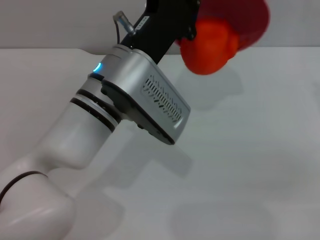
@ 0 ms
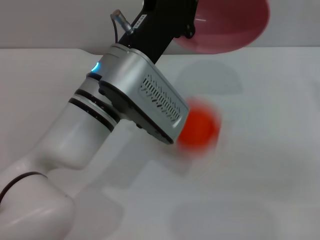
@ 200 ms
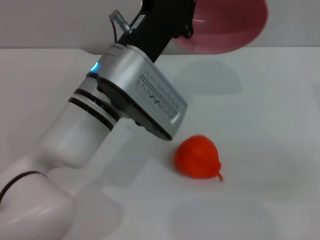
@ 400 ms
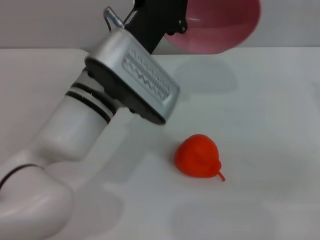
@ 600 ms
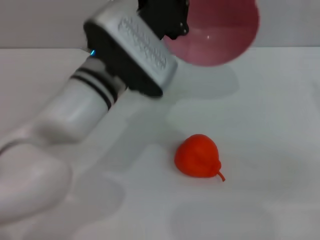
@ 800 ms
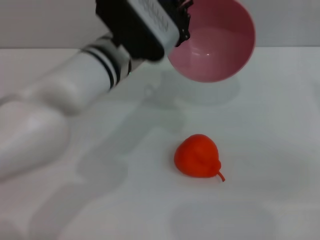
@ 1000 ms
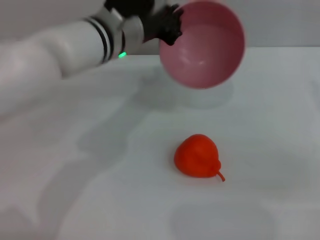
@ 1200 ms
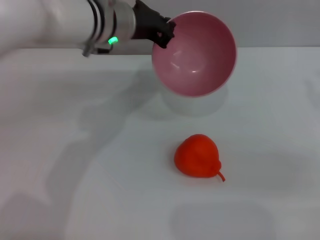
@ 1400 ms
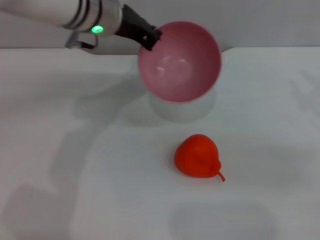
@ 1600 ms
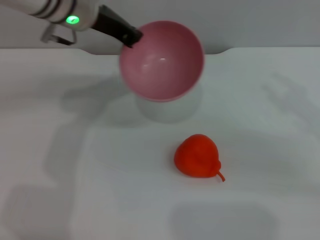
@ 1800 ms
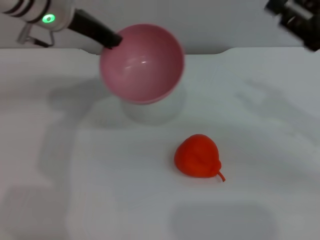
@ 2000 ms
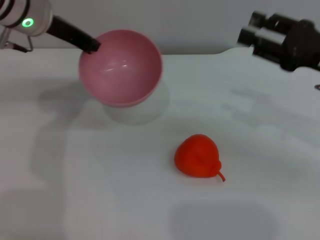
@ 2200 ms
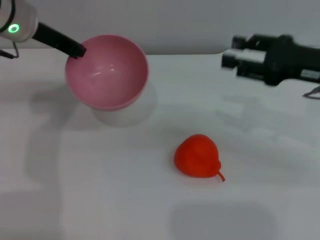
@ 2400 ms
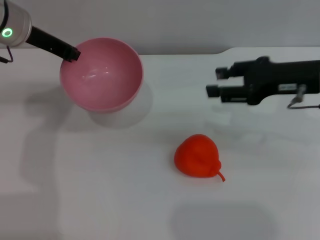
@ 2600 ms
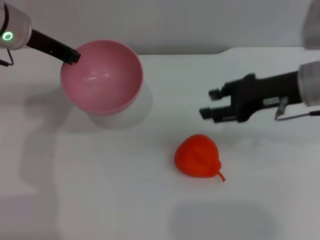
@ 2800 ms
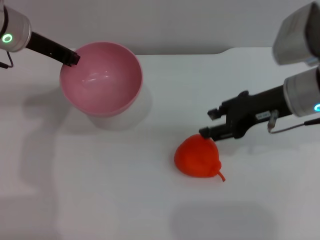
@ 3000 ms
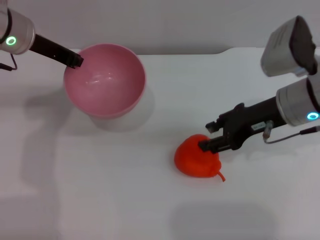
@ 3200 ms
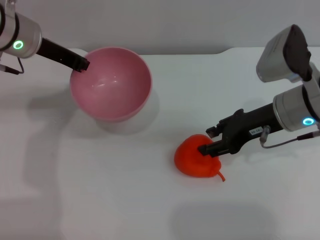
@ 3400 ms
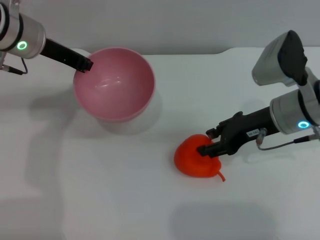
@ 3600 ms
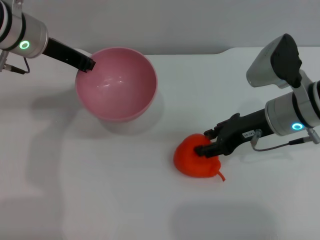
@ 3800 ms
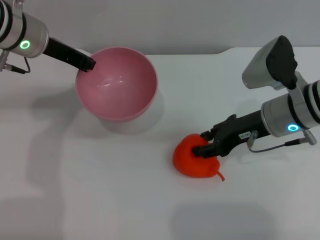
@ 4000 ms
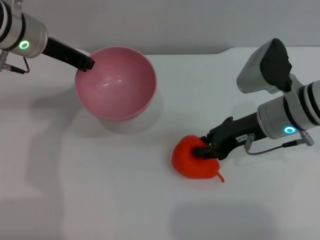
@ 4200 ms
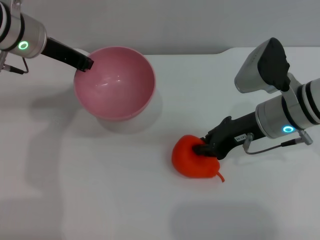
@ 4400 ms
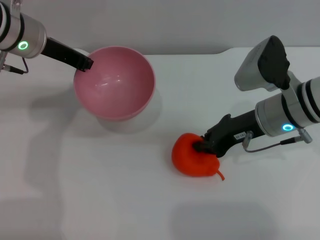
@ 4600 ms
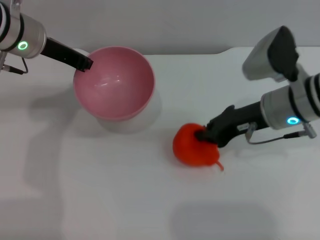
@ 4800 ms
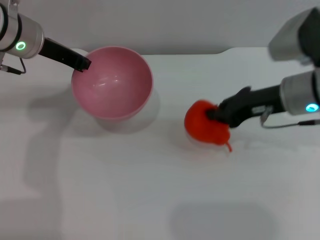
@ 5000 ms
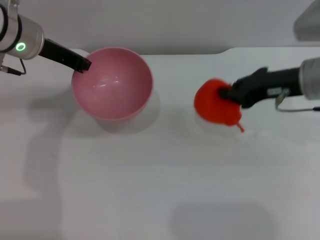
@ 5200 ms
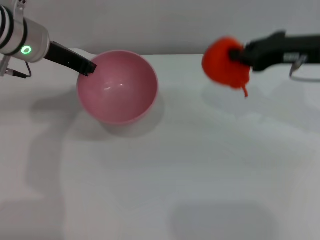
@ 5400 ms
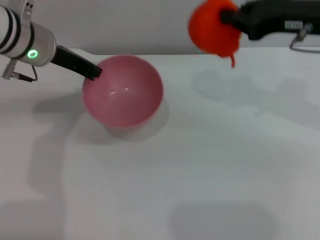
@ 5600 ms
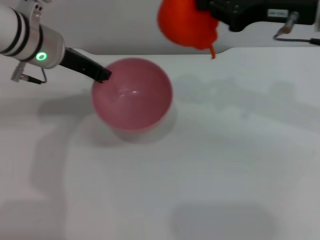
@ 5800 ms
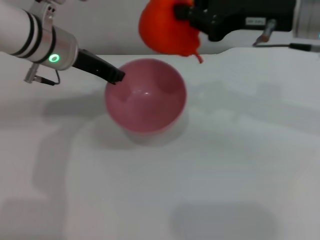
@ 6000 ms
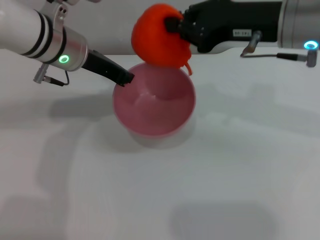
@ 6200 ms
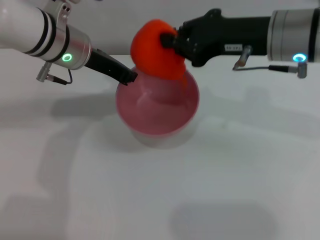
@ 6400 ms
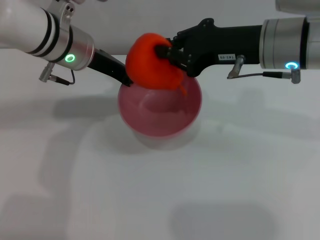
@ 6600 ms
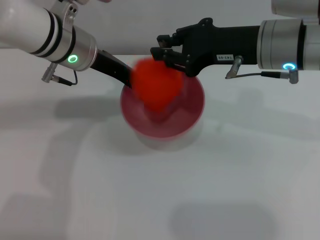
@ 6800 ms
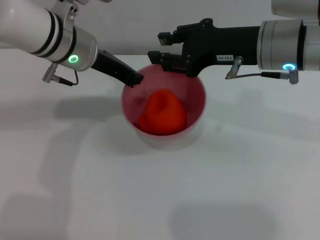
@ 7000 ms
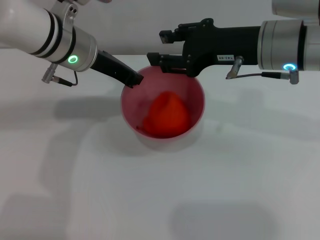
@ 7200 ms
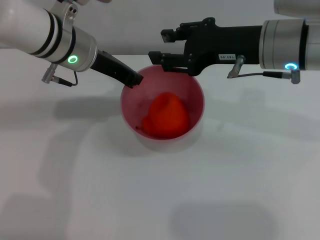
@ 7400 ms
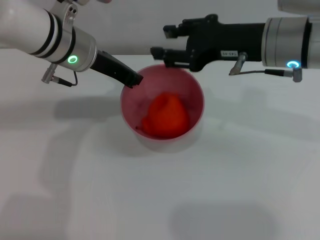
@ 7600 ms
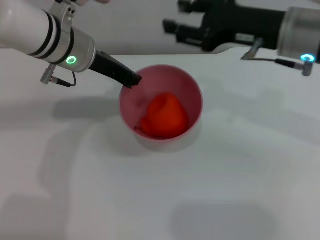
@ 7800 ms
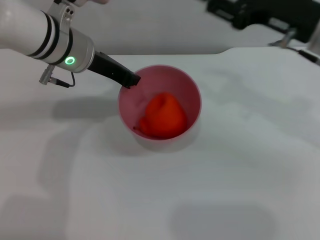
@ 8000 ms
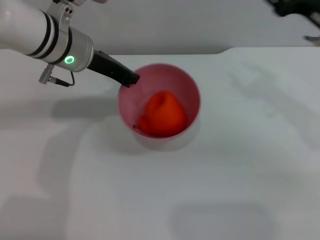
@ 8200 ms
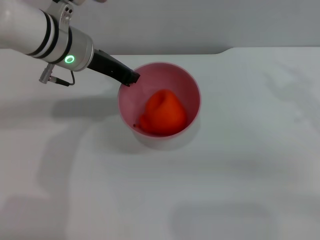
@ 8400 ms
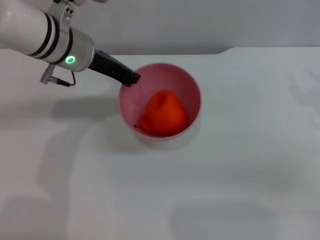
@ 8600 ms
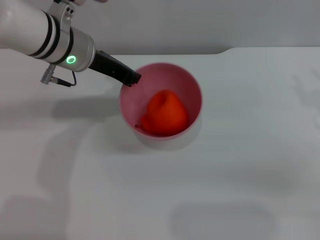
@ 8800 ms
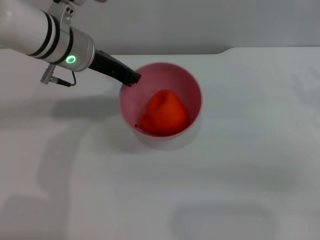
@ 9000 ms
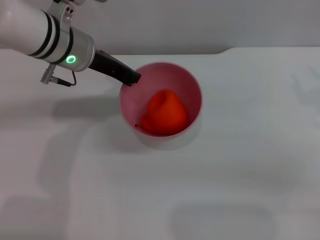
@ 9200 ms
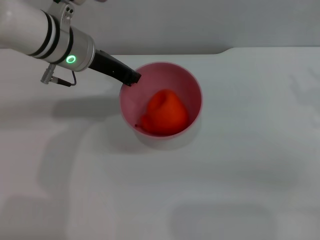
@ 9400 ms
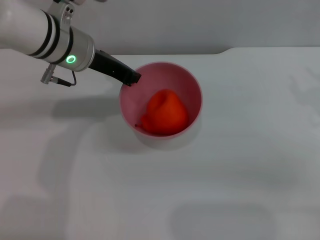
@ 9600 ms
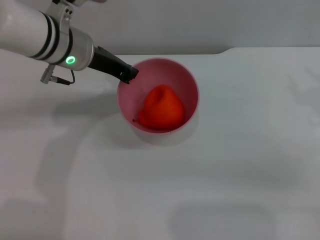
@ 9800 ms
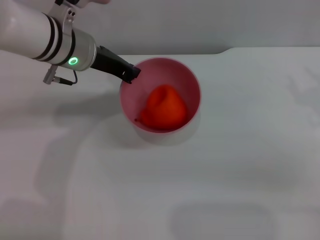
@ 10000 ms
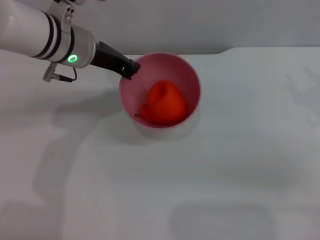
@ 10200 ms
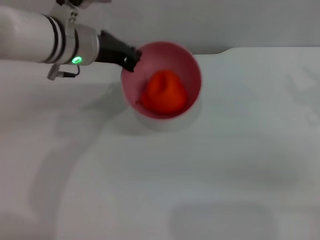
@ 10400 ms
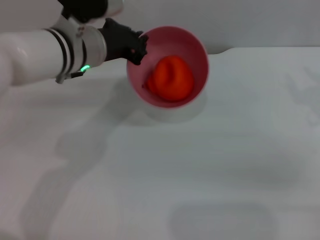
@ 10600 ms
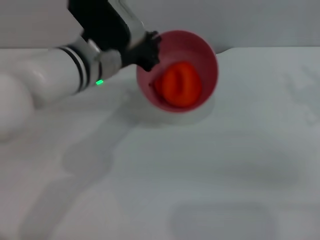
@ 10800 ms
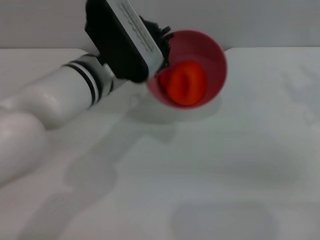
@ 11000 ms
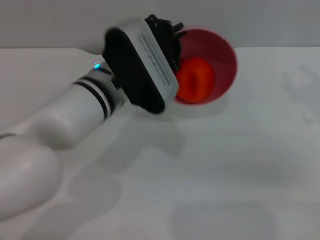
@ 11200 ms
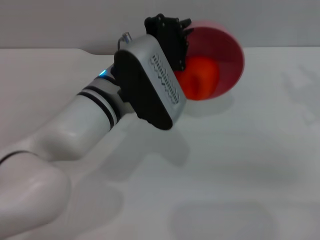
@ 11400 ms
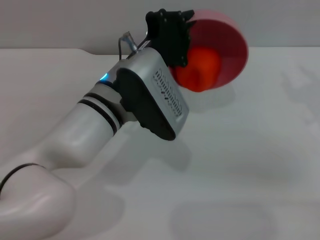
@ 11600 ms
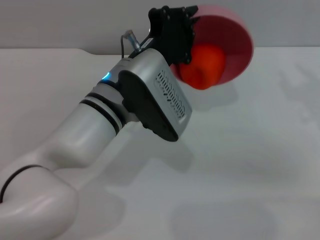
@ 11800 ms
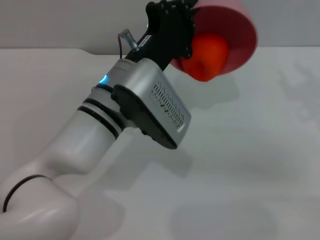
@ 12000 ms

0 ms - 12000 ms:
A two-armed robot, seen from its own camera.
Task of the whole recording: put the orange into the pink bowl and pour it out repeatedly.
Step, 600 ms - 5200 ms: Pick up the orange with the right gripper.
Step, 5400 ms - 7600 ms: Place the orange into the bowl.
0 ms - 1600 ms: The left gripper shifts about 15 cm forward and upward.
1600 ms - 3000 ms: The right gripper travels to the left and forward by about 15 cm; the left gripper is displaced to the left by roughly 10 cm.
3000 ms - 4400 ms: The right gripper changes place by some 5 cm, and closes its fingers.
4400 ms - 6000 ms: The right gripper shifts some 15 cm upward.
6000 ms - 7600 ms: The right gripper opens its fingers.
7600 ms - 9000 ms: The right gripper travels to the right and downward by approximately 15 cm.
9000 ms - 10400 ms: The grippers move only a little.
10400 ms - 12000 ms: The left gripper goes about 10 cm backward and to the right.

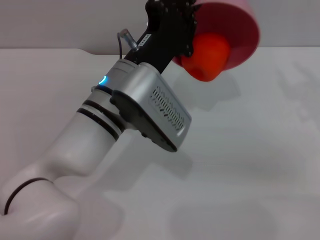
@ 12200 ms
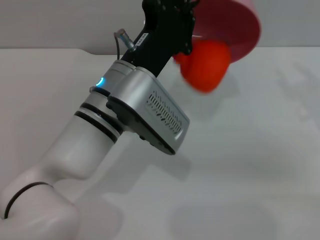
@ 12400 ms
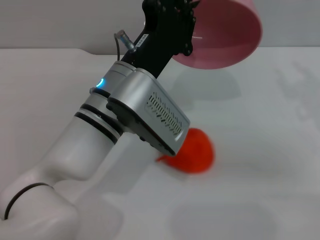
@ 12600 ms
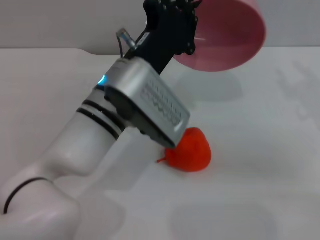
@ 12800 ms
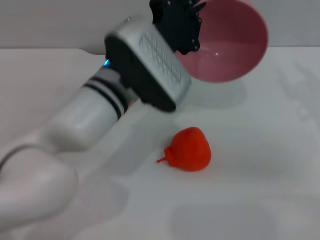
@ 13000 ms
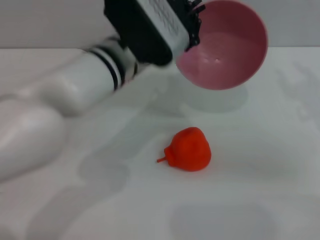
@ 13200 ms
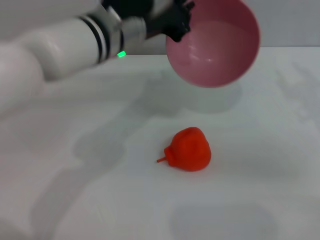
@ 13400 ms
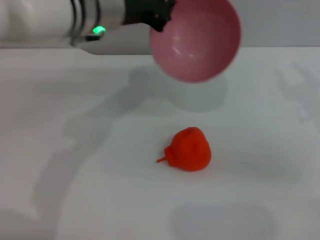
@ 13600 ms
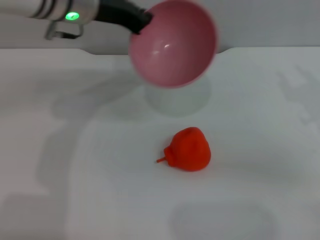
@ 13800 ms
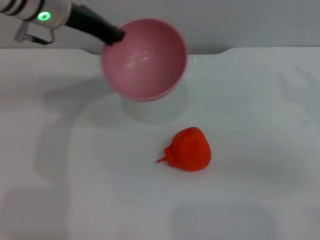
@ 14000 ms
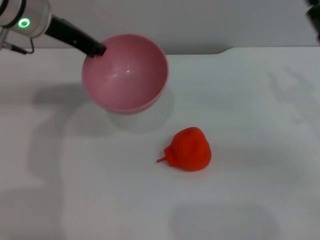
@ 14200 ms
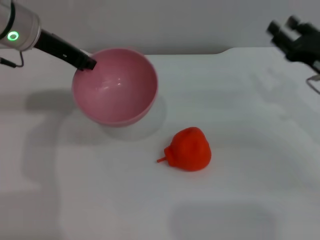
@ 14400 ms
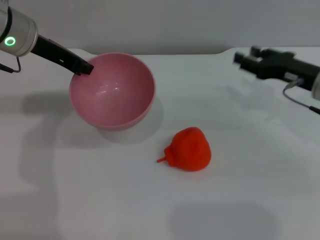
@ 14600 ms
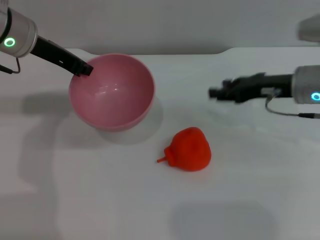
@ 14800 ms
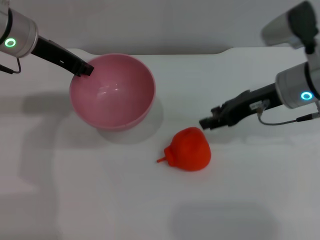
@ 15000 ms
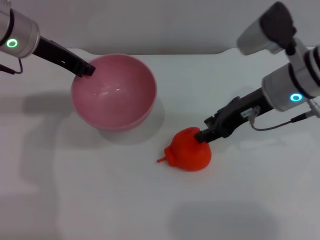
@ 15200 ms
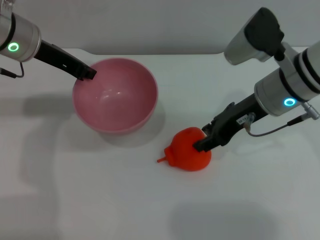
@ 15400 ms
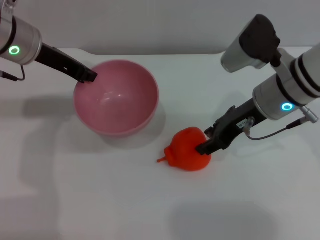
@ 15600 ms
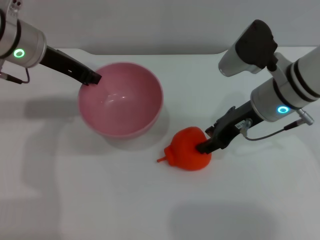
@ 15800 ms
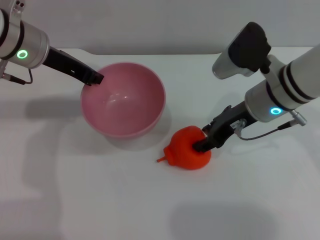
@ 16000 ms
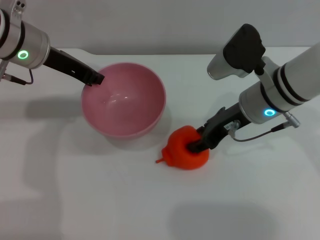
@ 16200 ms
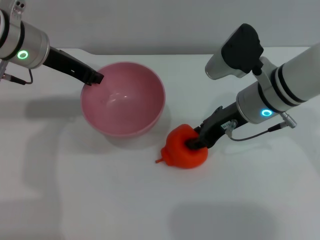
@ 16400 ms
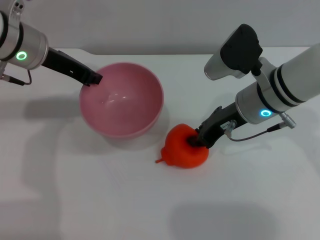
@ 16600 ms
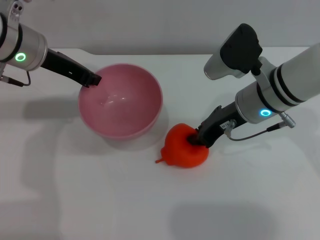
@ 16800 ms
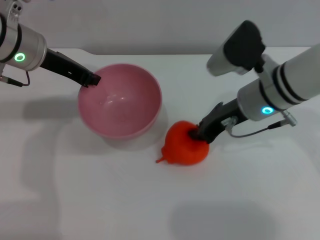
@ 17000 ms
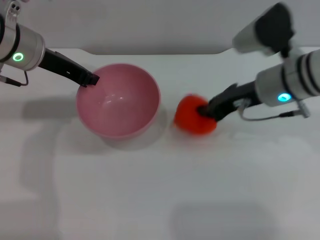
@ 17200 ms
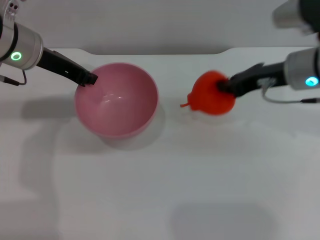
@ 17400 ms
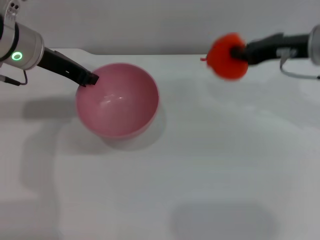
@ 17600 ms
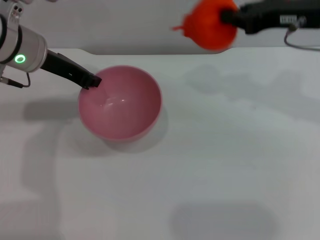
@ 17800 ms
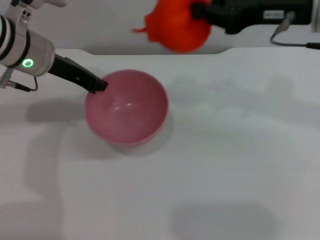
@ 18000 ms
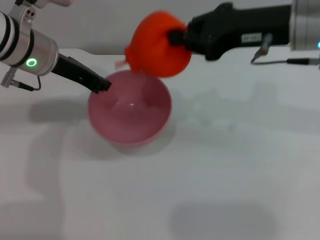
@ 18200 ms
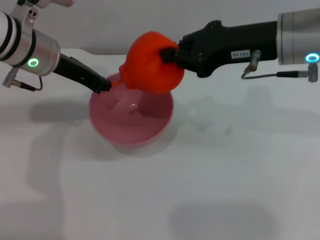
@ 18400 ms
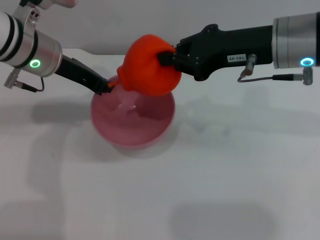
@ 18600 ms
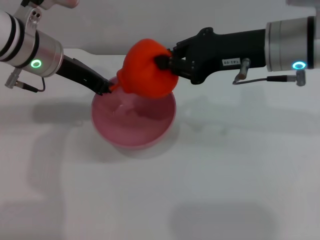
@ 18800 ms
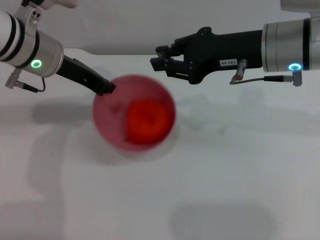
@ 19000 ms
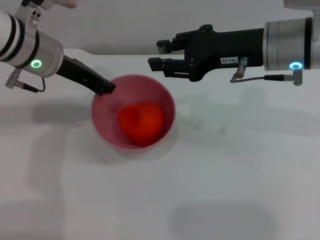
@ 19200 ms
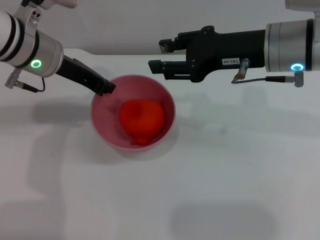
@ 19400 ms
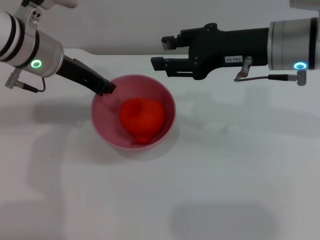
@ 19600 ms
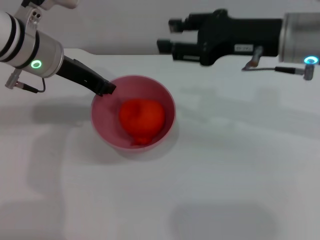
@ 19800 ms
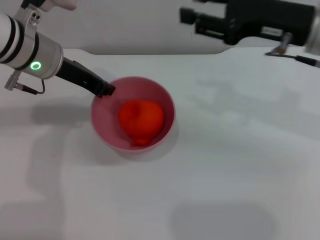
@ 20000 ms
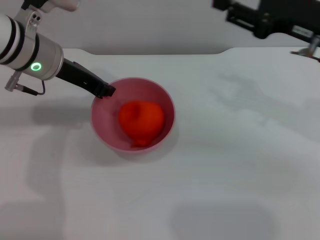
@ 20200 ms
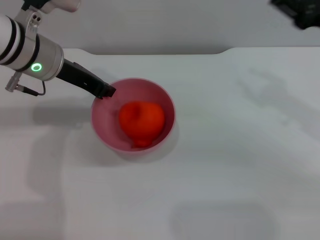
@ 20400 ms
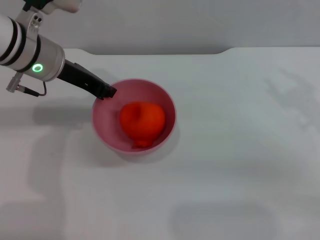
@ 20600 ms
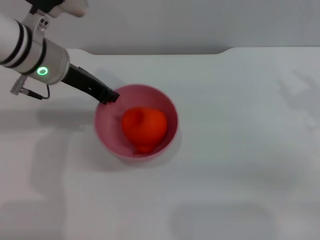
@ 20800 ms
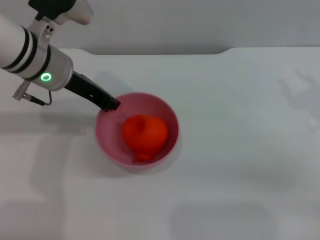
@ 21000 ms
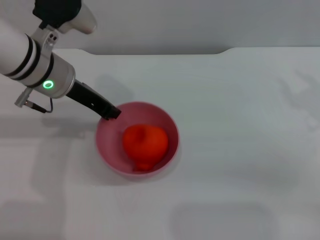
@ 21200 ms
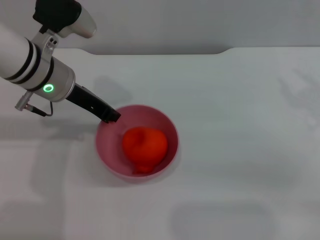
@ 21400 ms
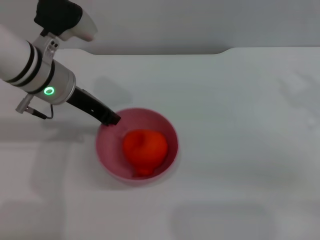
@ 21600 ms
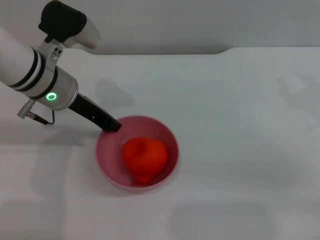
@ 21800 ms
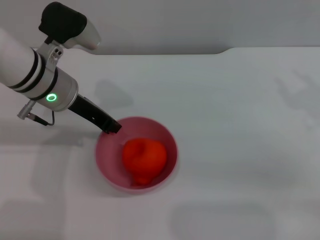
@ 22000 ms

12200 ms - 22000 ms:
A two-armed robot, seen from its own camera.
Task of the whole recording: put the orange into the pink bowl and pour it out repeatedly.
Step, 13000 ms - 17200 ms: Pick up the orange with the right gripper.
Step, 17400 ms - 19200 ms: Place the orange into the bowl.
12200 ms - 13600 ms: The left gripper heads forward and upward, covering roughly 15 cm.
13600 ms - 15000 ms: The right gripper shifts some 10 cm to the left and forward. The left gripper shifts roughly 10 cm to the left.
15000 ms - 16400 ms: The right gripper goes approximately 5 cm to the left.
16400 ms - 17800 ms: The right gripper goes roughly 15 cm upward and to the right, and closes up.
17800 ms - 19200 ms: The right gripper travels to the left by some 5 cm, and opens up.
19200 ms - 20600 ms: The right gripper is displaced to the right by some 15 cm, and opens.
